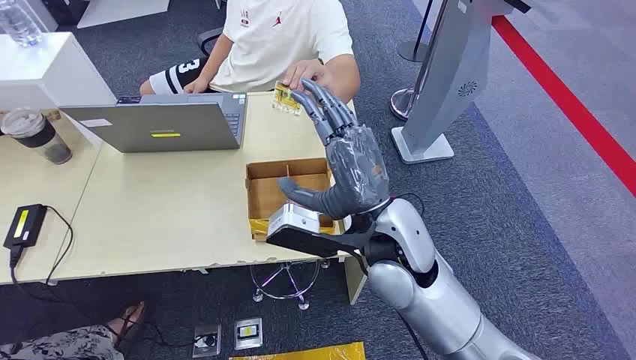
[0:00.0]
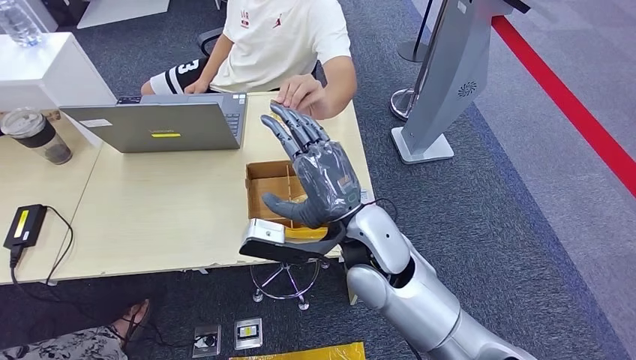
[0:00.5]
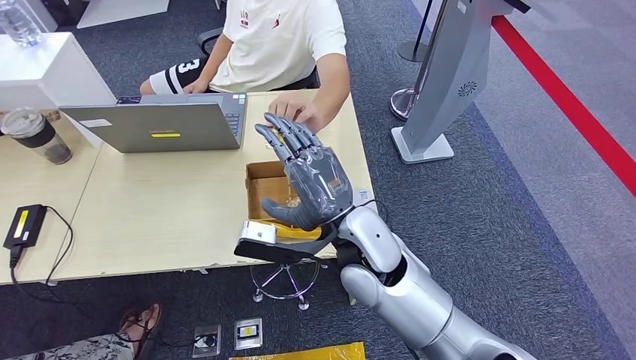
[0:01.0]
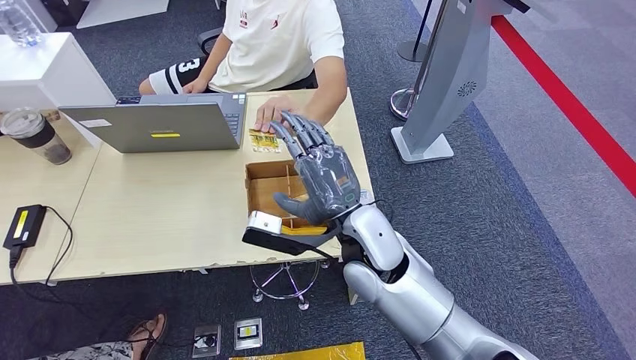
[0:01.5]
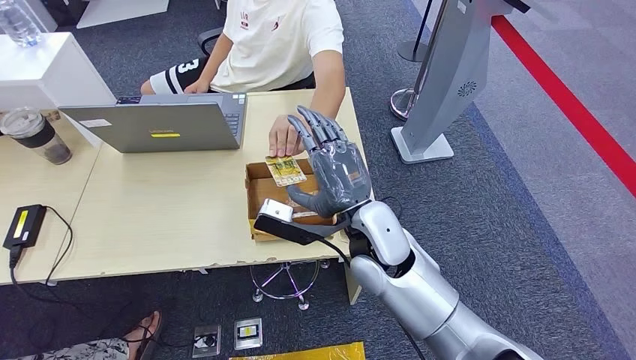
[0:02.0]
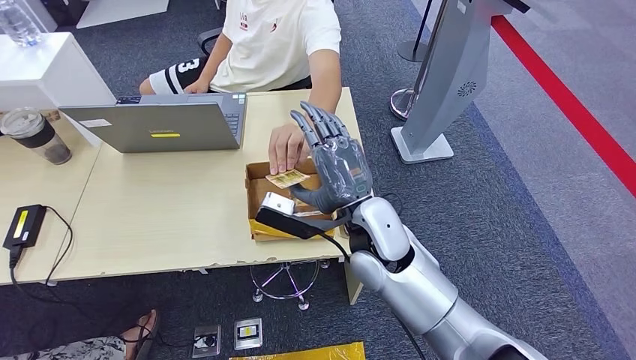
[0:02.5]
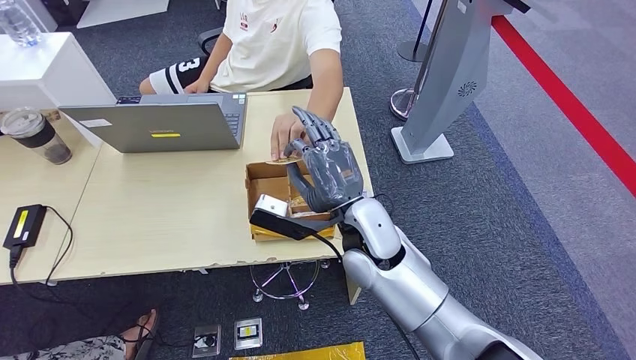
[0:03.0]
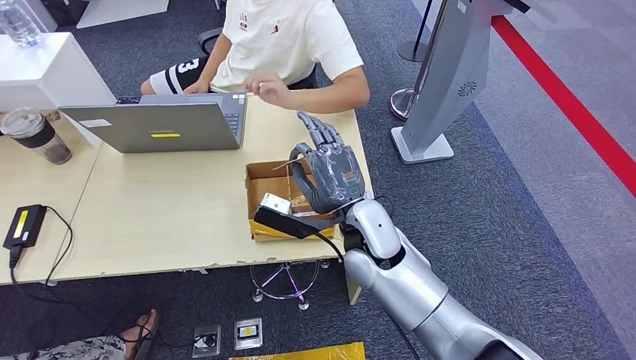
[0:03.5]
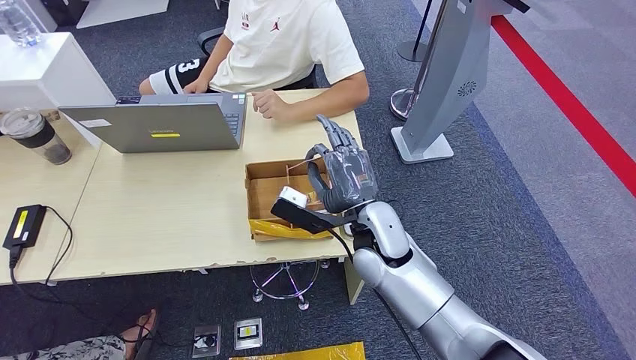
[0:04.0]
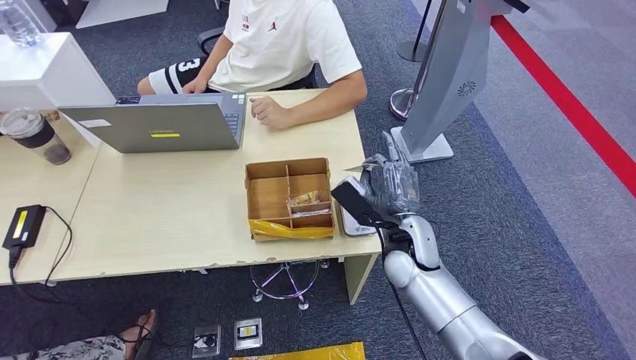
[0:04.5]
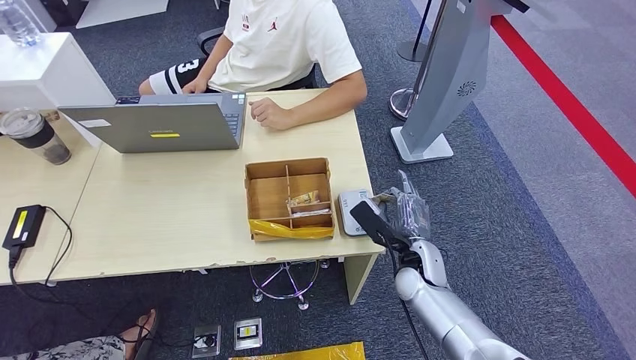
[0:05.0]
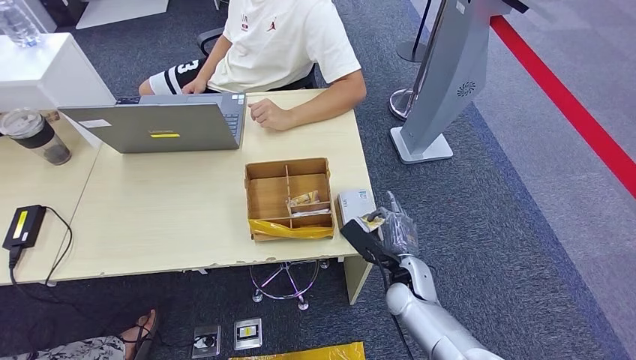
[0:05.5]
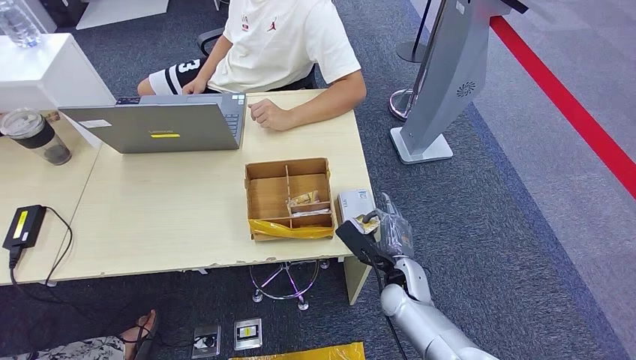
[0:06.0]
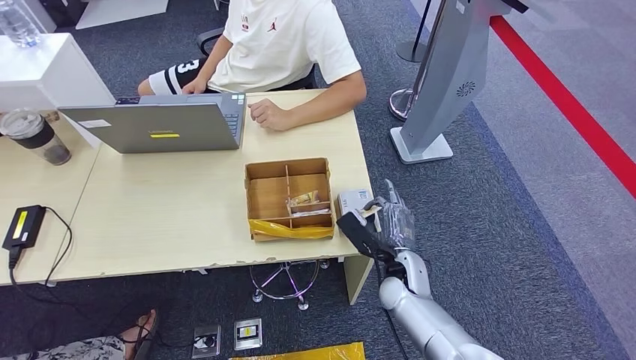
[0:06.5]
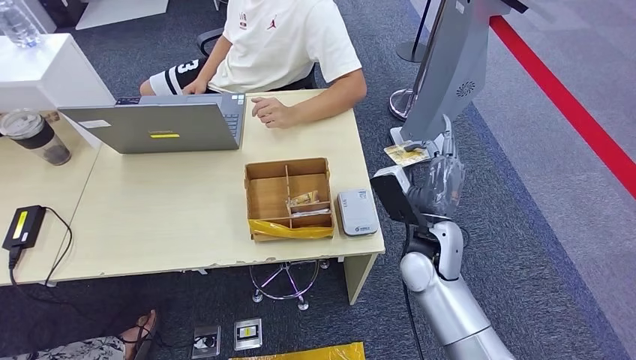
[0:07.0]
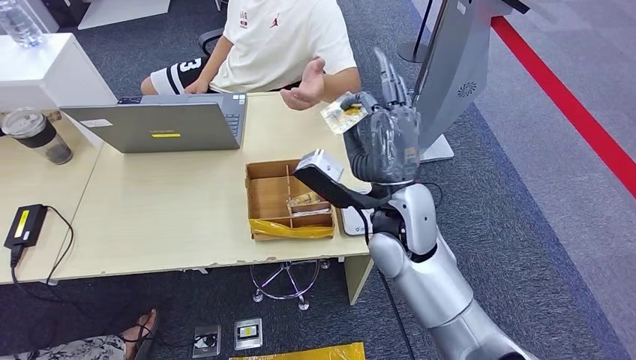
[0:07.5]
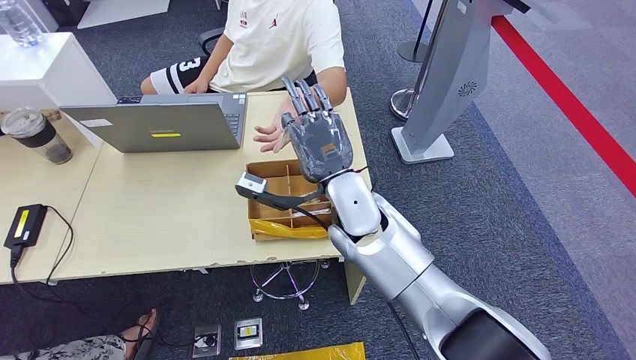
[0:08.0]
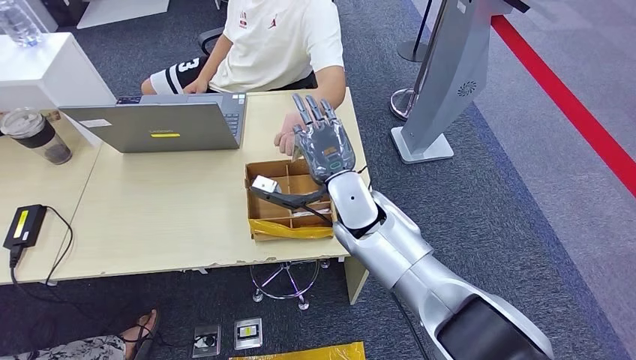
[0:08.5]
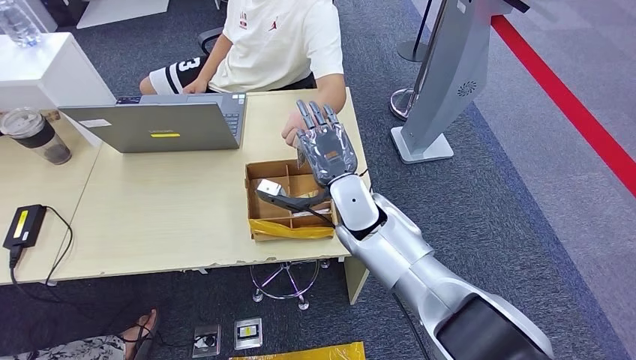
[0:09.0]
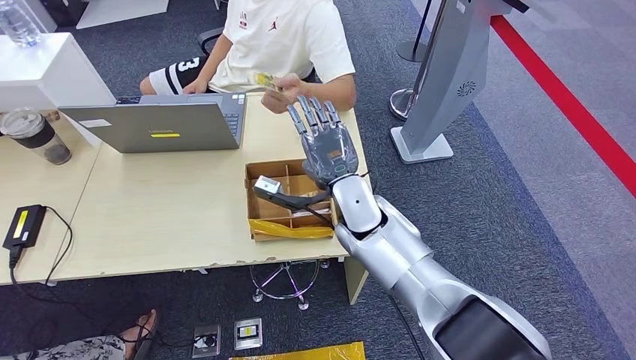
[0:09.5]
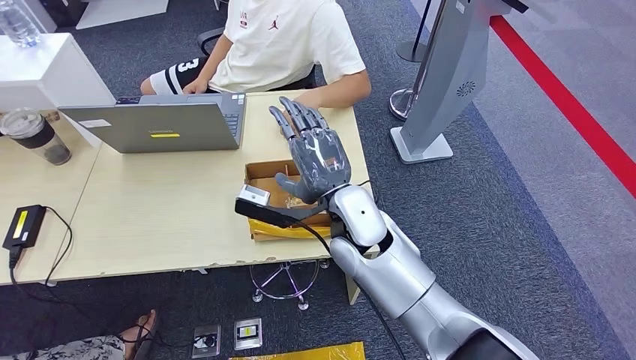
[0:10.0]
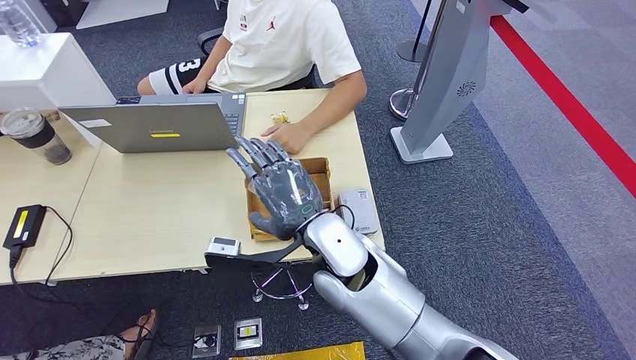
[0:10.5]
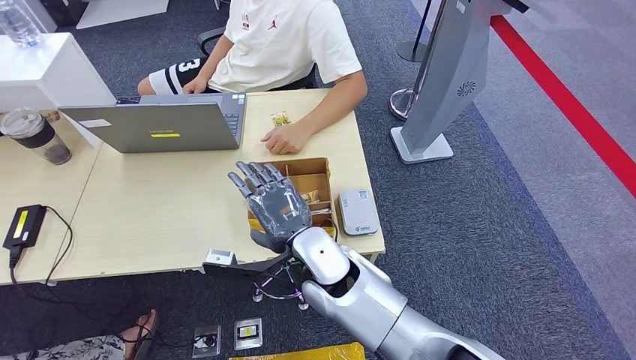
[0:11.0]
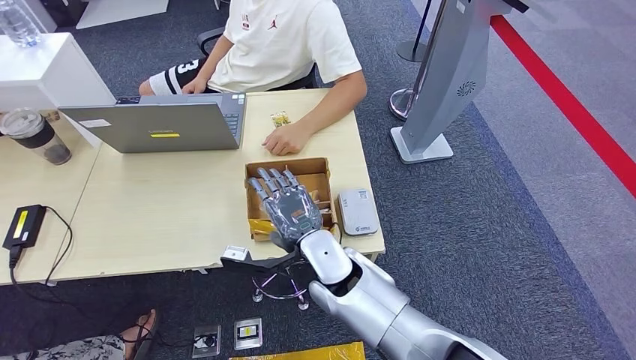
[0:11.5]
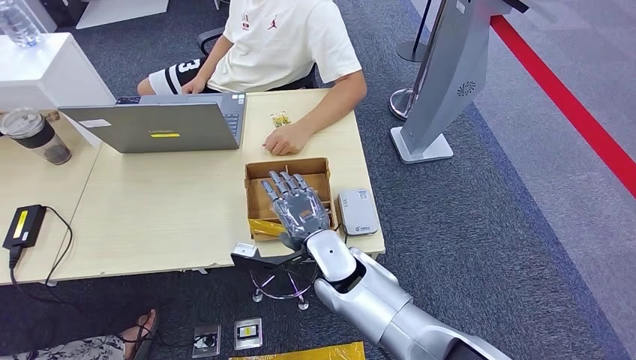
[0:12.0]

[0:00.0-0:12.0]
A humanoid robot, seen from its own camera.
Step, 0:00.0 to 0:03.0: Take the ID card from the person's hand.
Step, 0:04.0 to 0:06.0: Place the ID card on the card reader.
Step, 0:07.5 to 0:09.5: Hand the ID card to the person.
0:02.0 to 0:04.0: The hands stay close to where they were, moving slightly.
0:04.0 to 0:06.0: The right hand is displaced downward and to the right by about 15 cm.
0:06.0 to 0:08.0: The right hand shifts approximately 25 cm upward and to the left.
0:08.0 to 0:10.0: There are only small adjustments of the hands.
0:10.0 to 0:12.0: The right hand shifts about 10 cm downward.

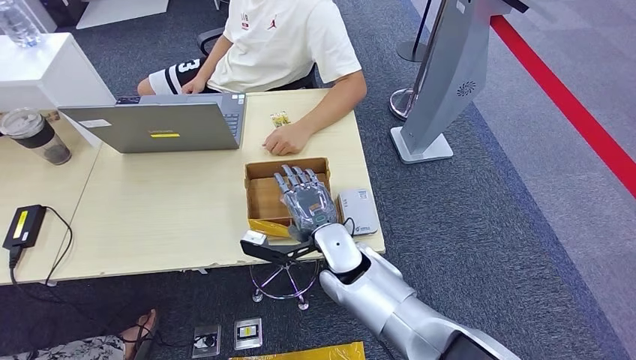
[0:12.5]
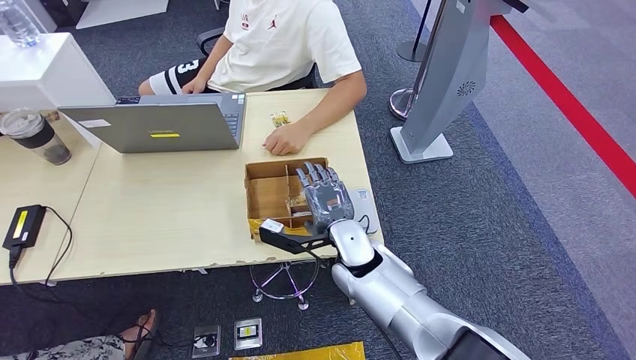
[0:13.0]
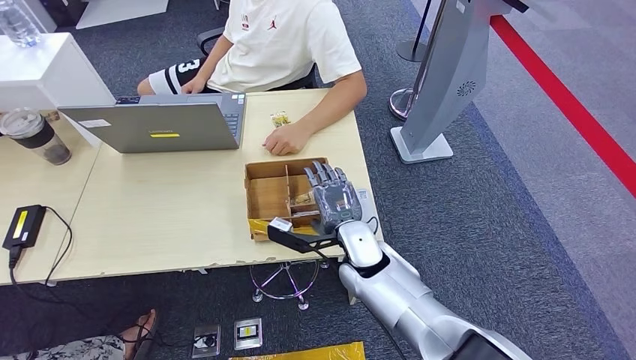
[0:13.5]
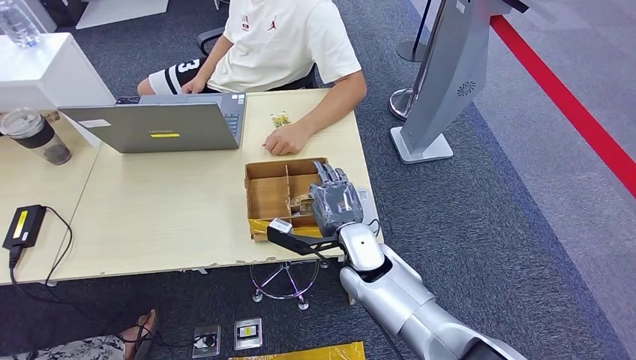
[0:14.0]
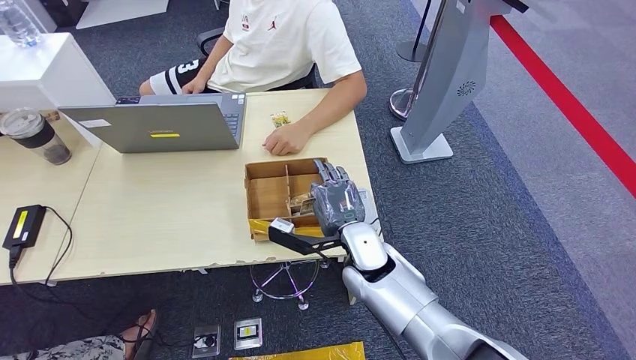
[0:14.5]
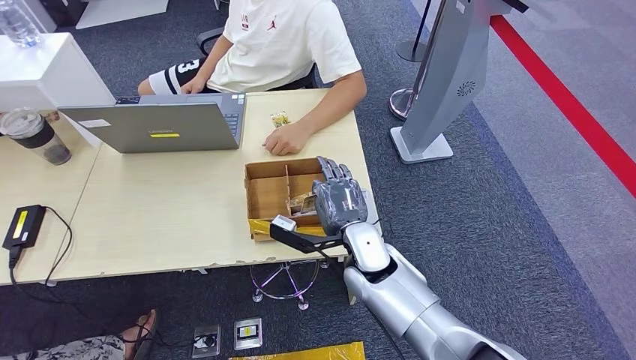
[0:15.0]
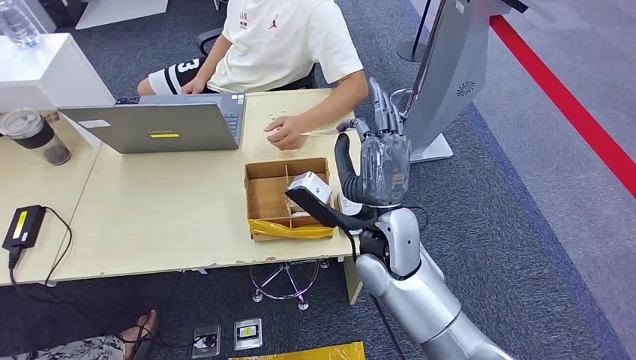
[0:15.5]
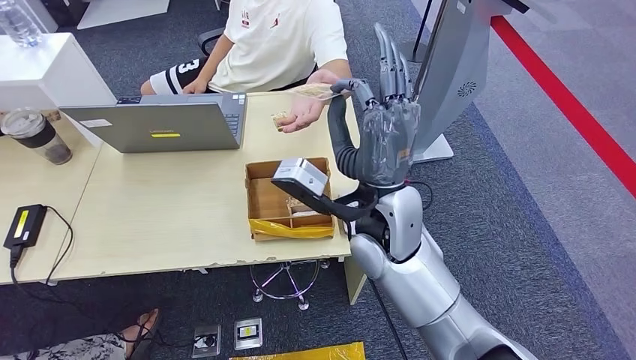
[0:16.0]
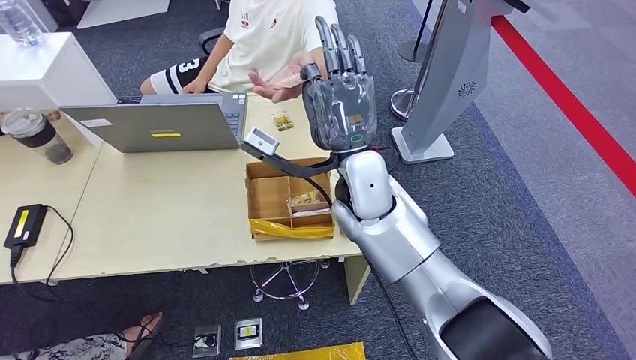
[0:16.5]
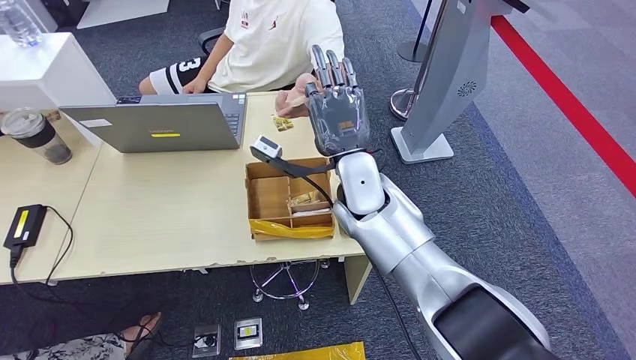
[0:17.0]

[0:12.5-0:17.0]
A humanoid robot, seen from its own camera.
Step, 0:14.0 to 0:15.0: Pick up the room key from the key card box.
Step, 0:16.0 to 0:17.0: Hand the room key to the person.
0:12.5 to 0:14.5: The hands move only a little.
0:14.5 to 0:17.0: The right hand shifts about 15 cm upward and forward.

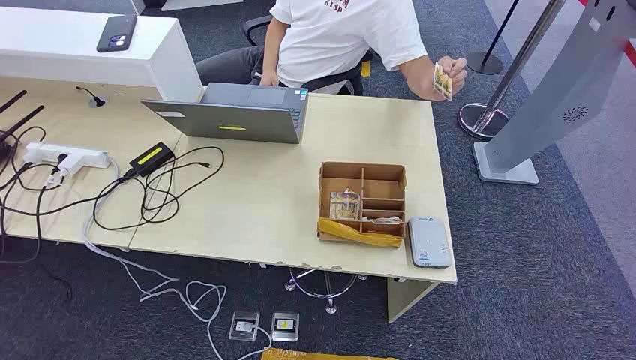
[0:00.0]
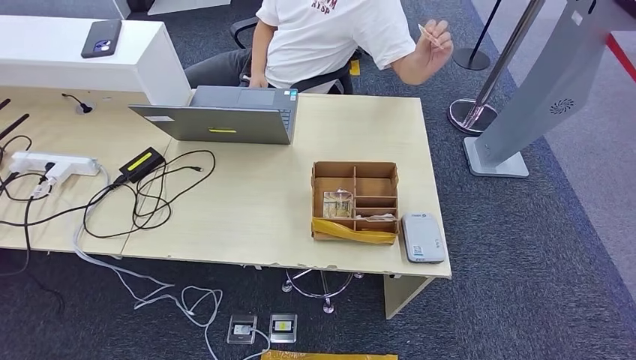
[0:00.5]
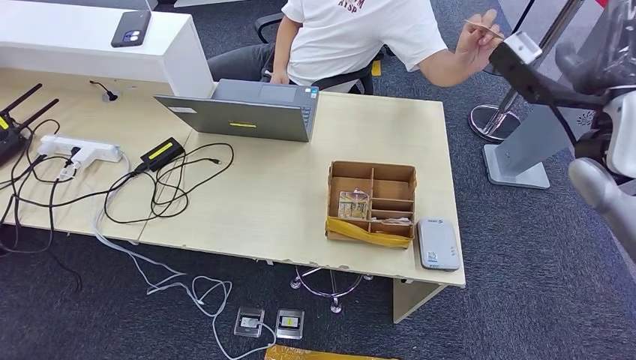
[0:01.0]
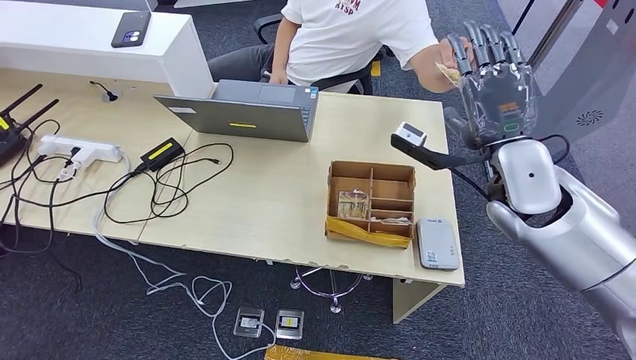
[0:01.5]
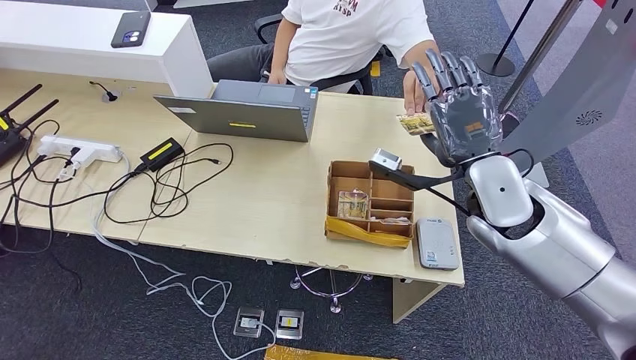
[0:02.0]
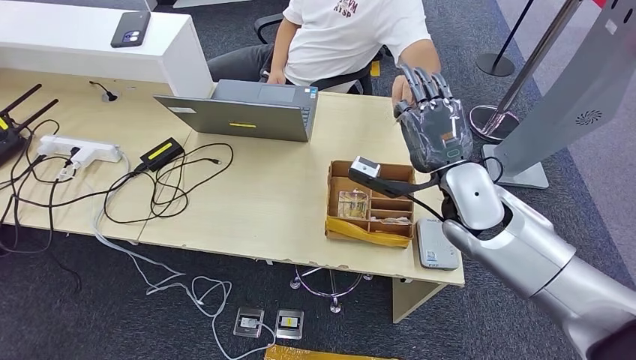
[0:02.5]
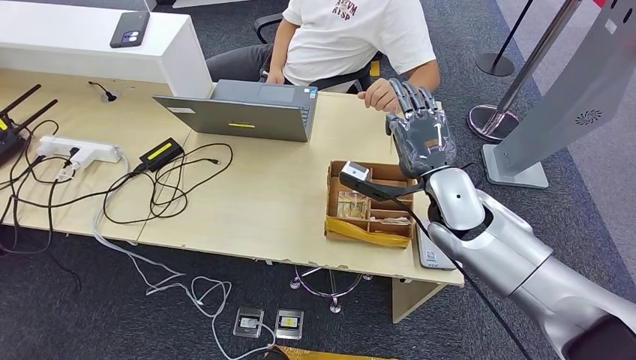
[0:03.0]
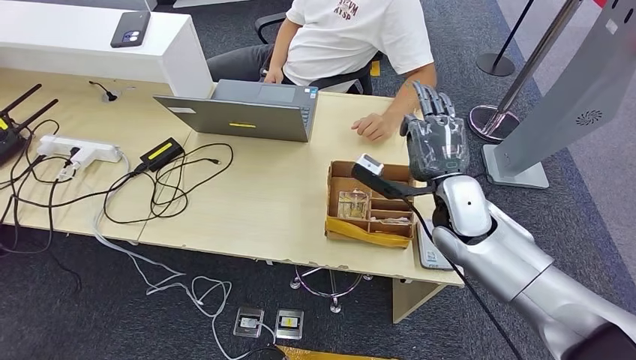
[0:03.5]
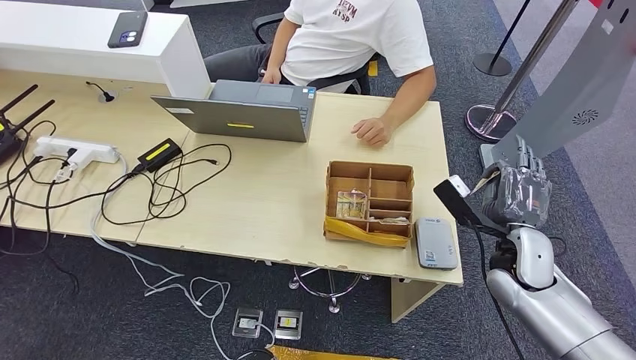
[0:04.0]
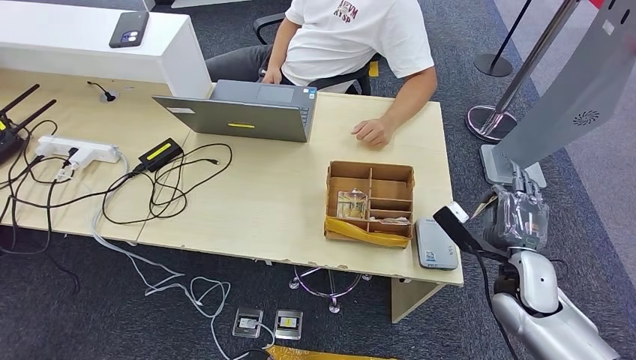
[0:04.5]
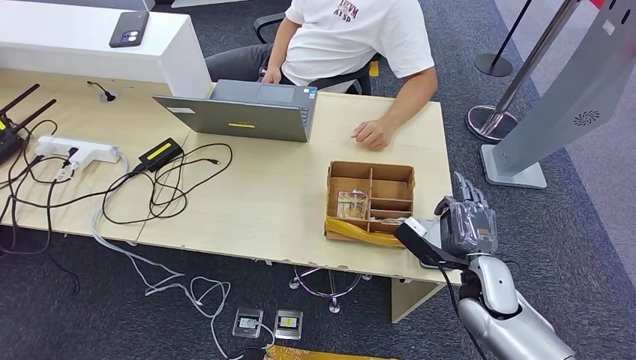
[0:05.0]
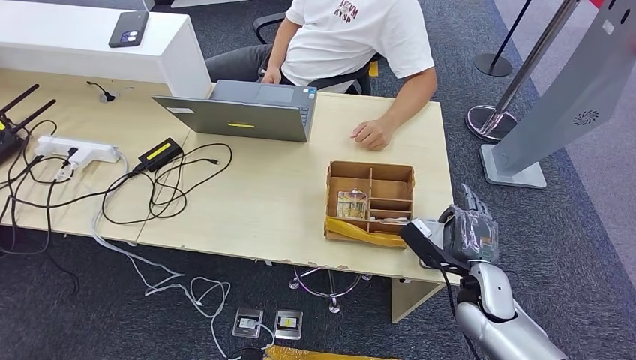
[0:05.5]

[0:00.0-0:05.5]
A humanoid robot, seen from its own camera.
Step, 0:00.0 to 0:03.5: Take the ID card from the person's hand.
0:02.0 to 0:03.5: The left hand heads to the right, covering approximately 5 cm, while the right hand heads downward, covering approximately 5 cm.
0:03.5 to 0:05.5: The right hand is displaced downward, to the right and backward by about 20 cm.
